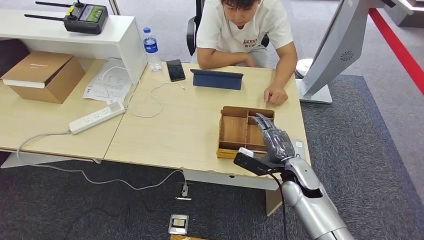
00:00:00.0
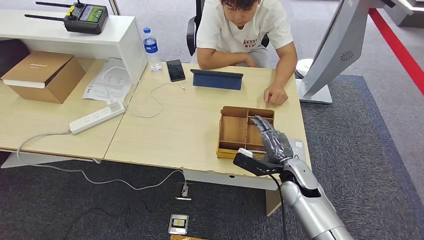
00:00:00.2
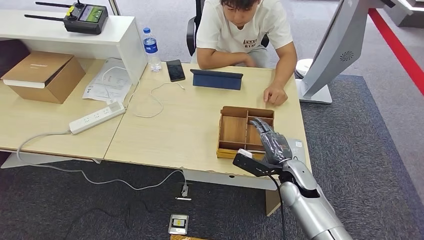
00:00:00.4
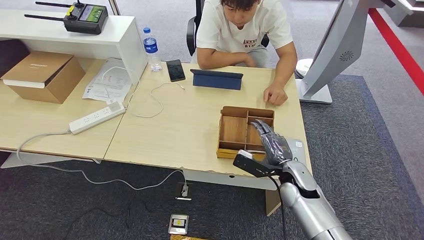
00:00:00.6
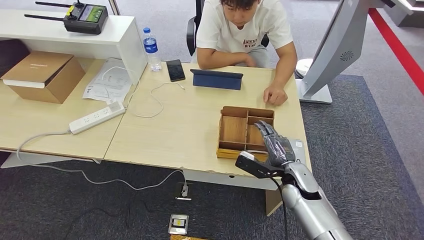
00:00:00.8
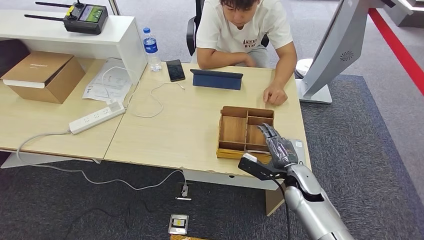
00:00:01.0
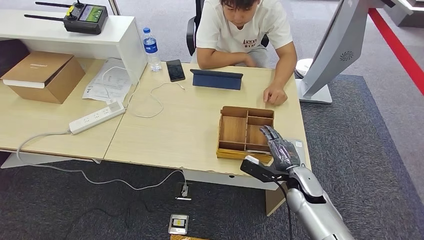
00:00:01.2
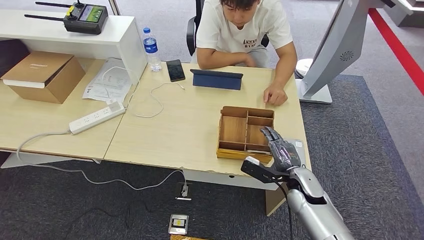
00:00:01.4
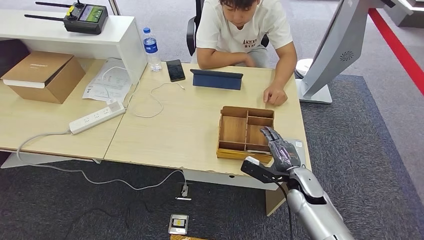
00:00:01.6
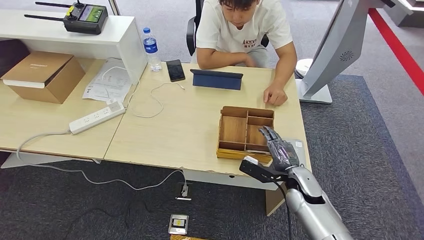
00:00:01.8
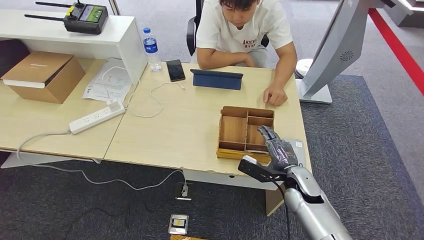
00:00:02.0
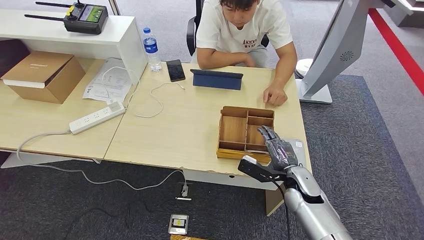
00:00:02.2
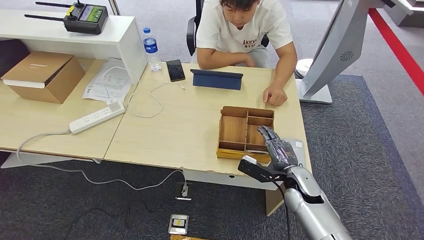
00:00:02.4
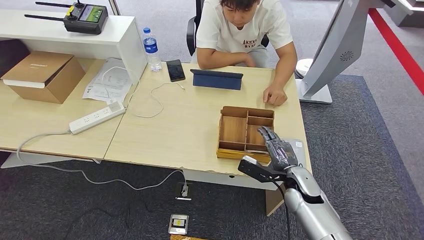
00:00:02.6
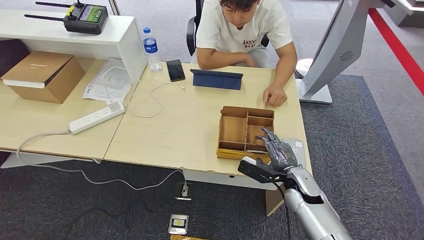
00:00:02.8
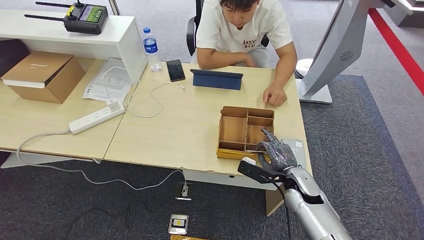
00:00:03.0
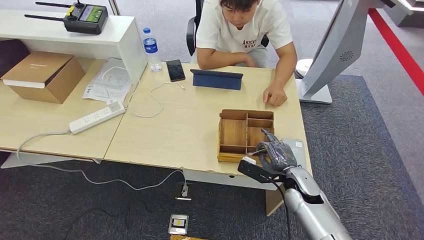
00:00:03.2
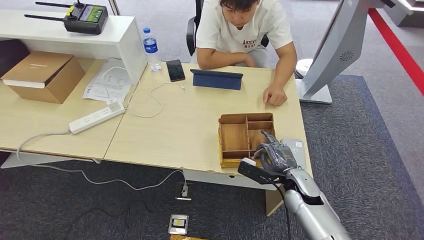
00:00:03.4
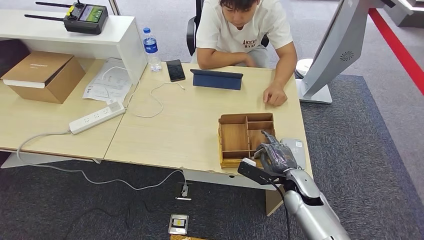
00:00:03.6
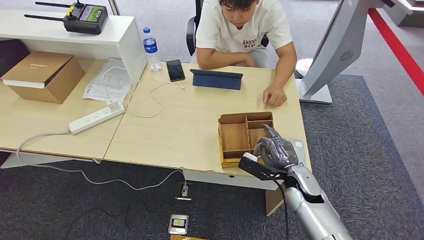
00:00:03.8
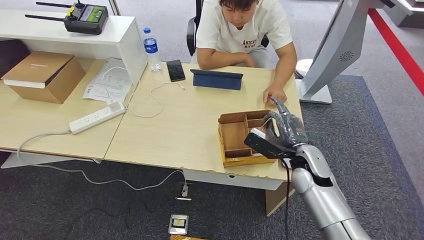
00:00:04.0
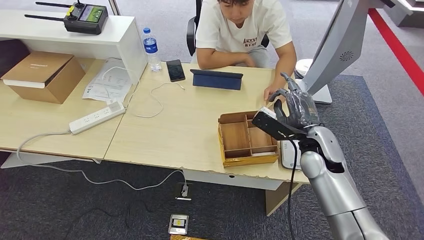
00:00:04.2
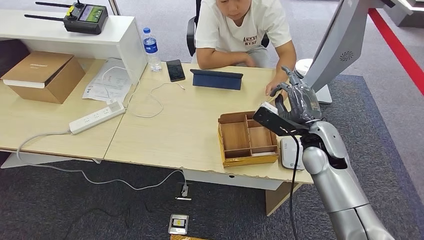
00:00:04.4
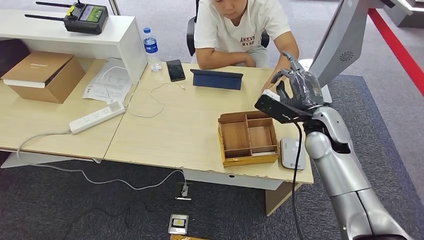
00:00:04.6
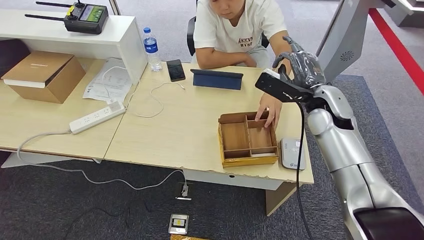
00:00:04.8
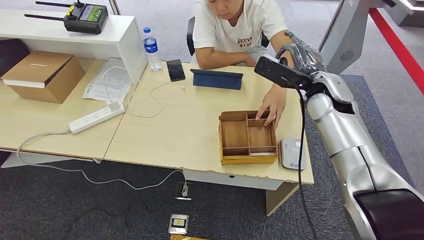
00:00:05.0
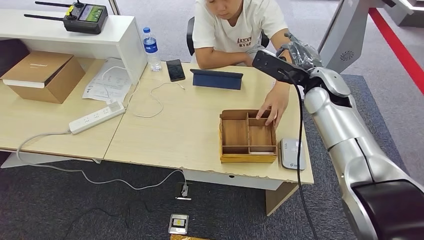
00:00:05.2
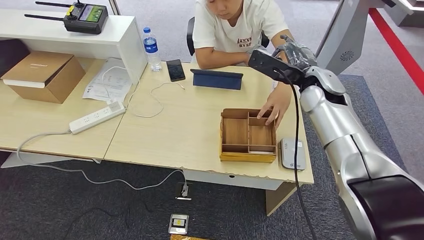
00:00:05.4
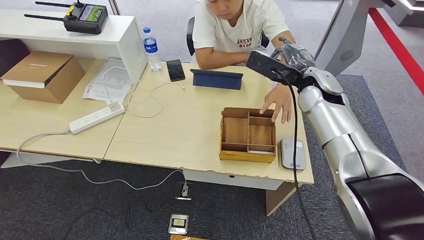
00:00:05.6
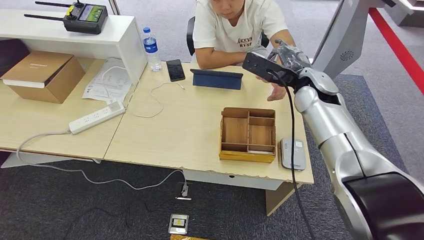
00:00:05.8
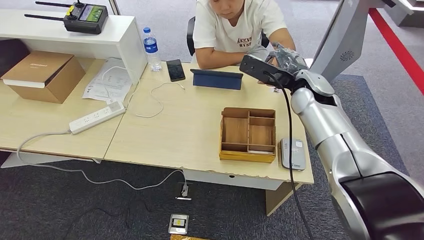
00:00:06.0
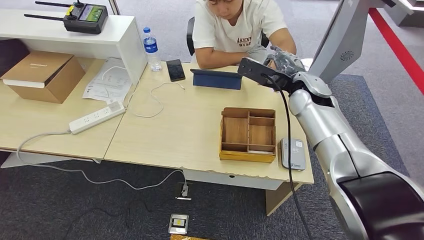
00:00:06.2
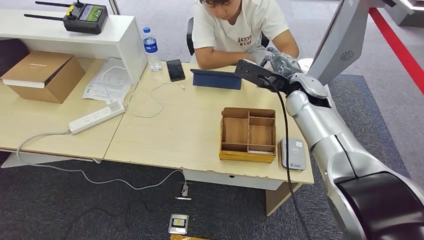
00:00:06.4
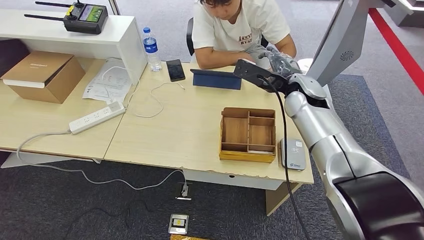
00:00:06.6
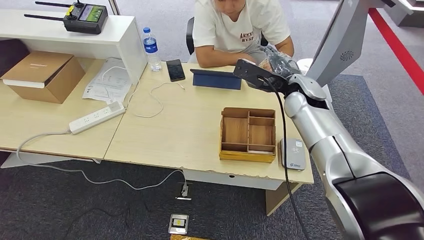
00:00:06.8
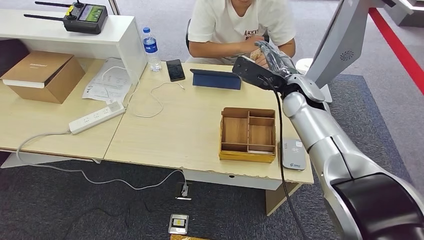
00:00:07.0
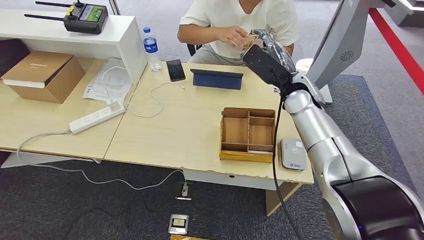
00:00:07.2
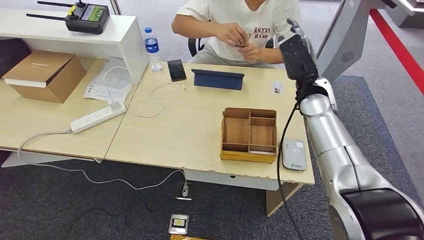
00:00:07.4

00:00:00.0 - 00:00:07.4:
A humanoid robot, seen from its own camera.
Step, 00:00:00.0 - 00:00:03.6: Pick up the room key from the key card box.
Step, 00:00:03.8 - 00:00:07.4: Hand the room key to the person.
00:00:00.0 - 00:00:01.4: The hands move only a little.
00:00:01.4 - 00:00:03.0: Both hands stay about where they are.
00:00:03.0 - 00:00:04.4: The right hand shifts roughly 15 cm upward and forward.
00:00:04.4 - 00:00:06.0: The right hand shifts approximately 10 cm forward and upward.
